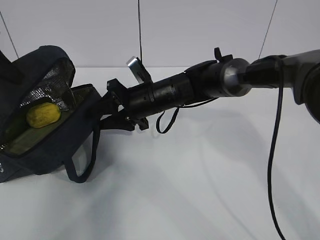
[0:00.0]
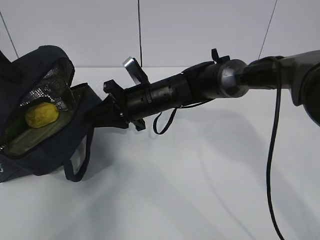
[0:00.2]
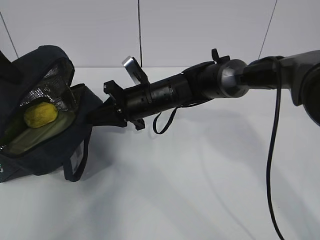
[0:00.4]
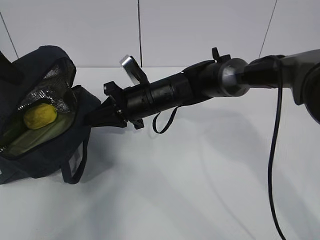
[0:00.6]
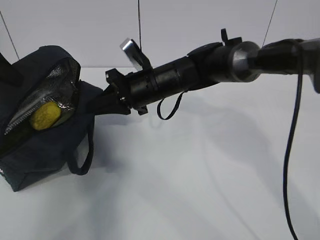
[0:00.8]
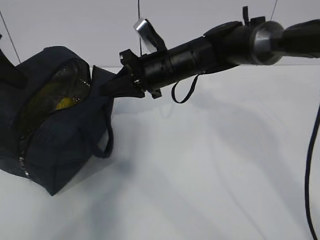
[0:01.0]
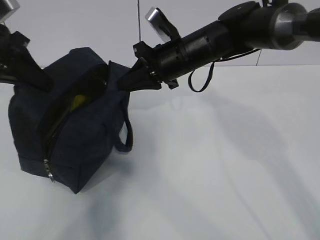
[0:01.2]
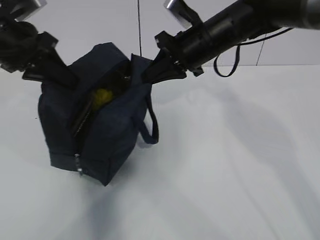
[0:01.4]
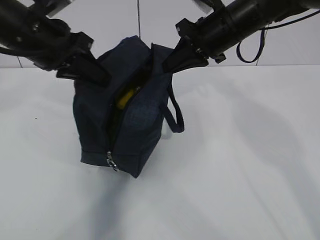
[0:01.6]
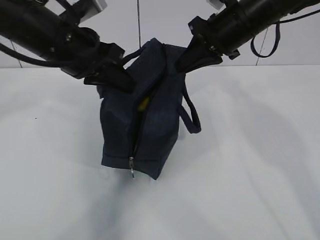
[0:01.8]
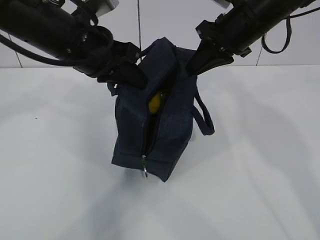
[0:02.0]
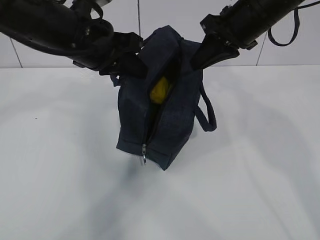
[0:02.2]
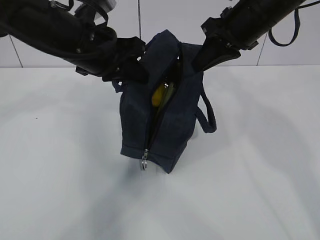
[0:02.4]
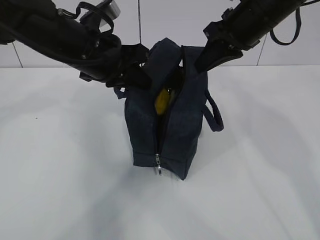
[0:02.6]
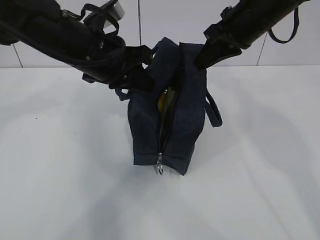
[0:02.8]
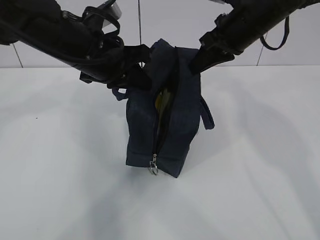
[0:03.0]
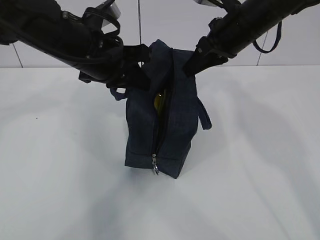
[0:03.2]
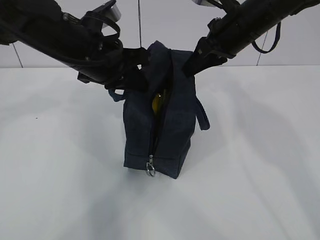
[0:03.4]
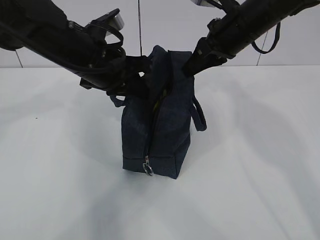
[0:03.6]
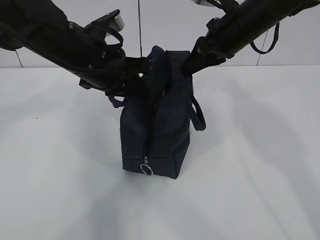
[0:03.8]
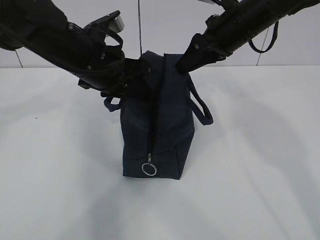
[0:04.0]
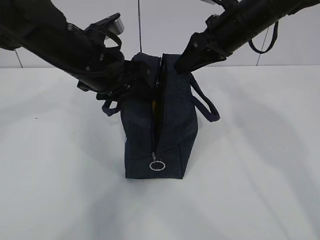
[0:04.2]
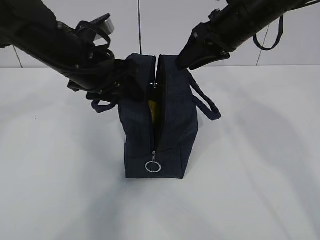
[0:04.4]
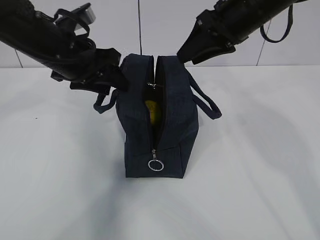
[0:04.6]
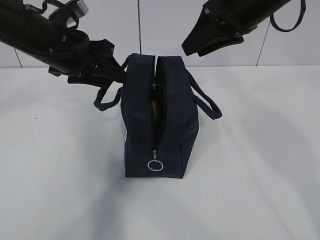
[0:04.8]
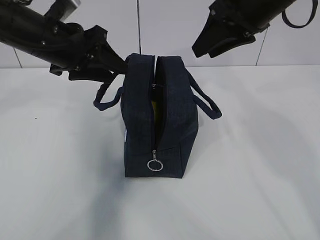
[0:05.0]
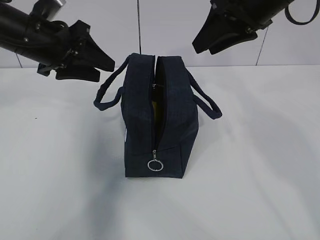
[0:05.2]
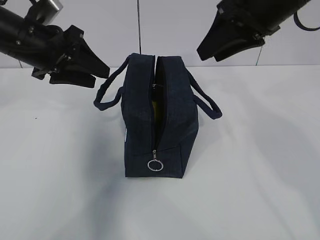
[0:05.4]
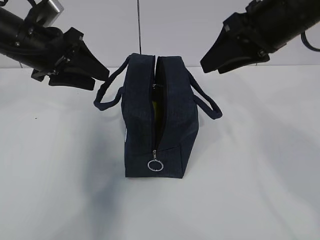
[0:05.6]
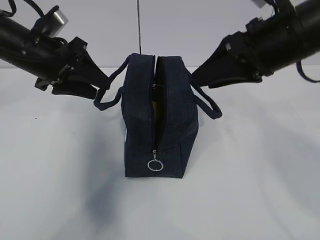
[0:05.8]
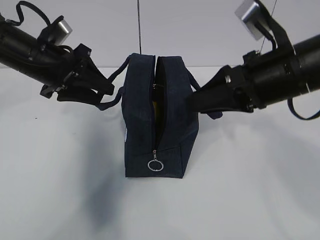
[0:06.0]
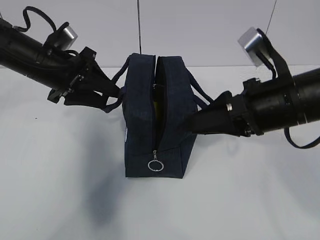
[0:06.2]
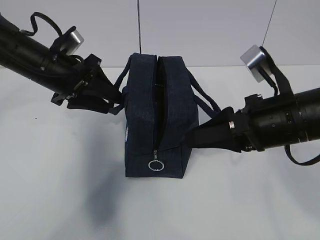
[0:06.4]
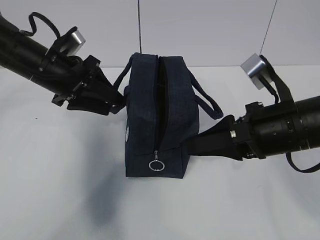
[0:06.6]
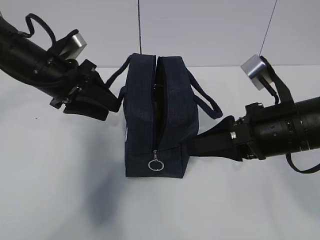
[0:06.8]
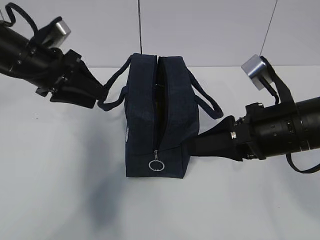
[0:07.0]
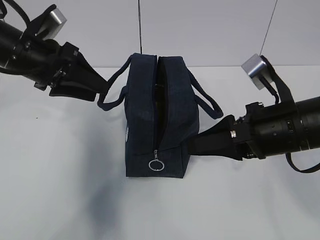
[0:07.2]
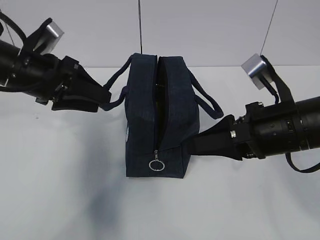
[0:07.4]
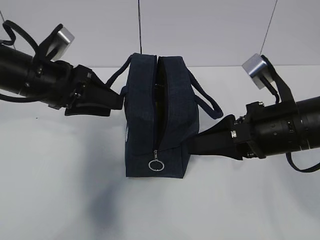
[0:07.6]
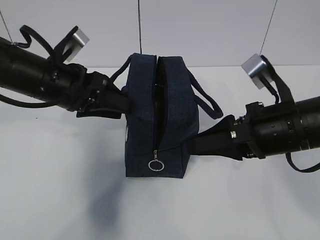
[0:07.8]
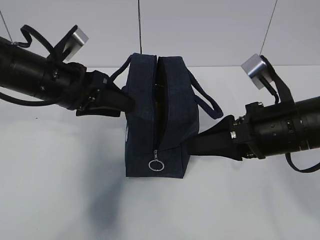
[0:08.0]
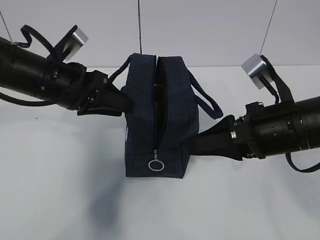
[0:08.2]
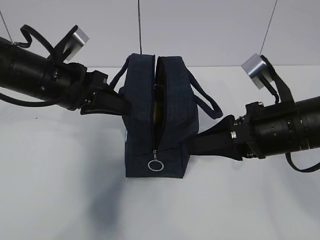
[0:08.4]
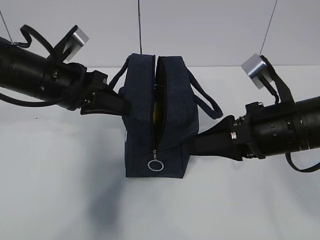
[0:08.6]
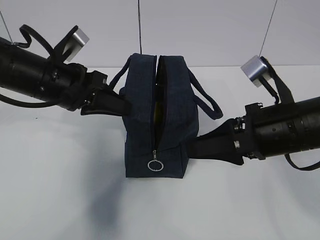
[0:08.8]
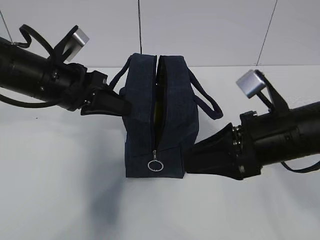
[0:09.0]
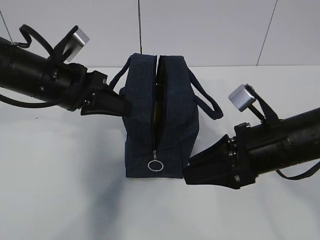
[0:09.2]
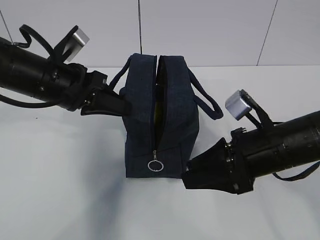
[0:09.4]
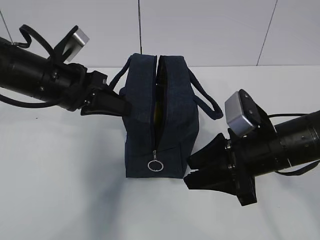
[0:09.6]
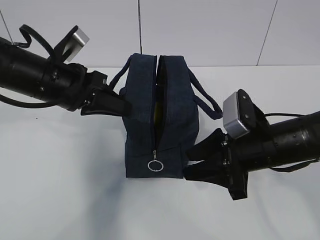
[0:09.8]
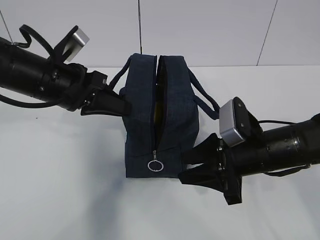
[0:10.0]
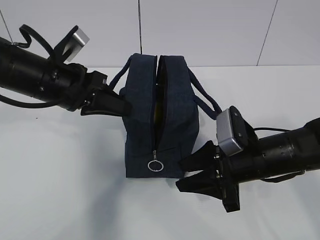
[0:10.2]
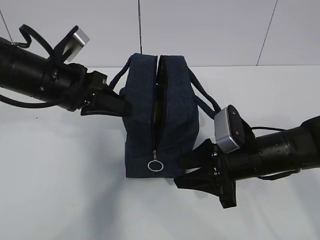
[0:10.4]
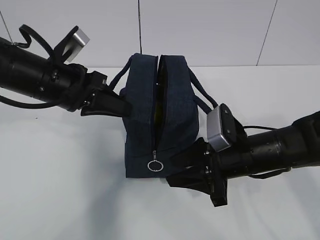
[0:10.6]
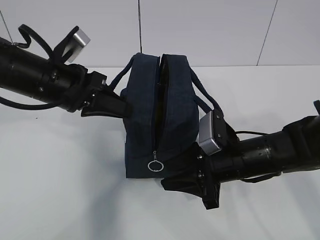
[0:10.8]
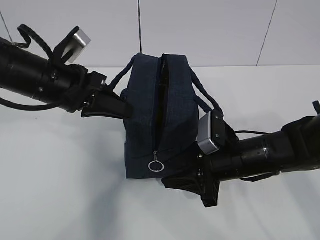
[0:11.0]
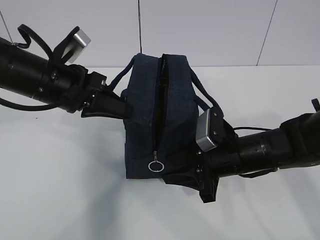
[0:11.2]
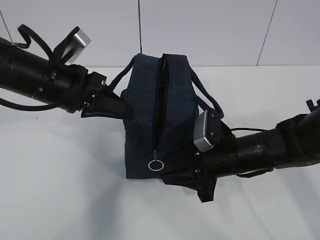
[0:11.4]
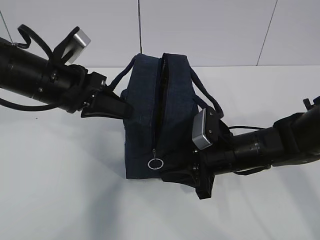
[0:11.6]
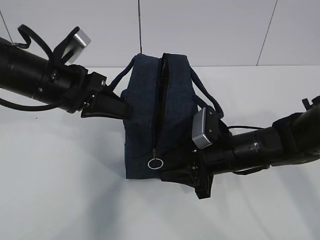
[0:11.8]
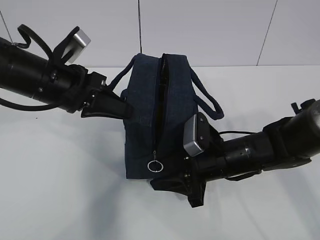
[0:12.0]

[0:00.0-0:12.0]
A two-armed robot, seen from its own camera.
0:00.0 to 0:01.6: The left gripper moves to the right, about 15 cm, while the right gripper travels upward and to the right by about 20 cm, and closes.
0:01.6 to 0:03.0: The left gripper moves to the right, some 5 cm.
0:03.0 to 0:04.4: The right gripper opens; the left gripper opens its fingers.
0:04.4 to 0:06.0: The left gripper shifts about 10 cm to the left. Meanwhile the right gripper goes approximately 10 cm backward.
0:06.0 to 0:07.6: The right gripper is displaced downward by roughly 5 cm.
0:07.6 to 0:09.0: The left gripper closes its fingers.
0:09.0 to 0:10.4: The right gripper goes roughly 10 cm downward.
0:10.4 to 0:12.0: The right gripper moves roughly 5 cm.

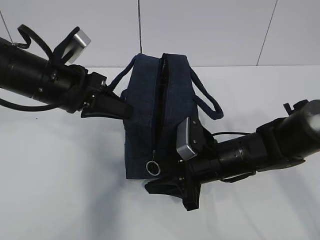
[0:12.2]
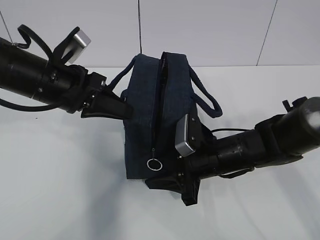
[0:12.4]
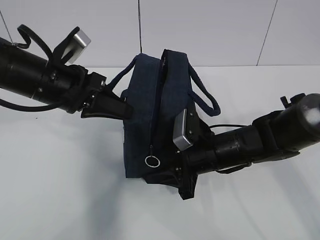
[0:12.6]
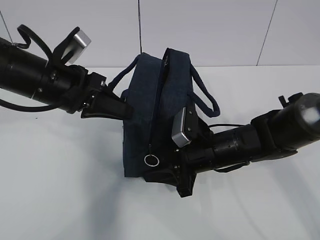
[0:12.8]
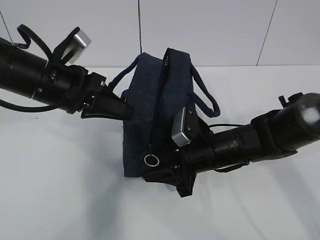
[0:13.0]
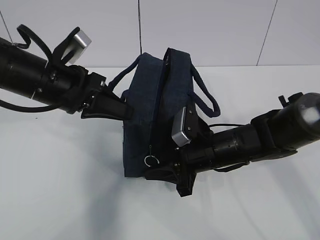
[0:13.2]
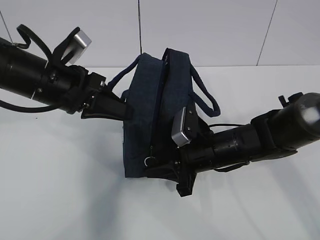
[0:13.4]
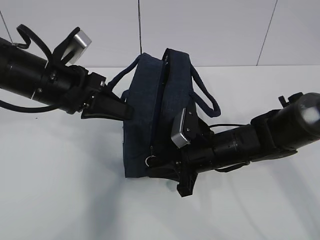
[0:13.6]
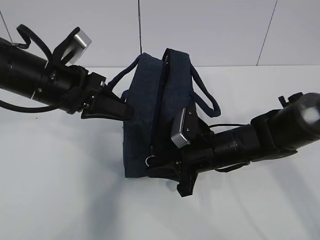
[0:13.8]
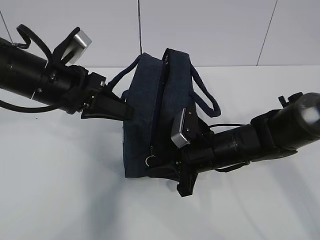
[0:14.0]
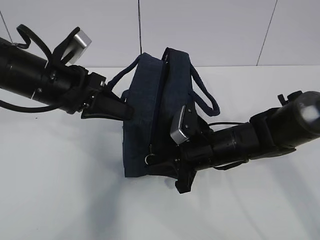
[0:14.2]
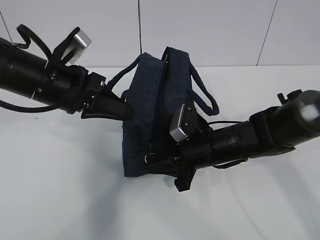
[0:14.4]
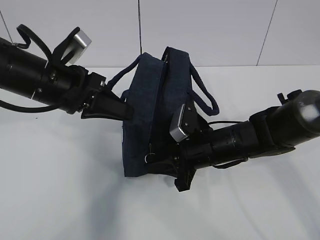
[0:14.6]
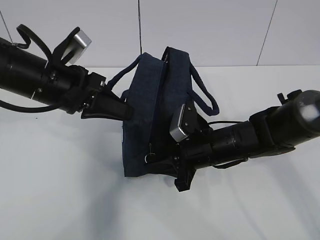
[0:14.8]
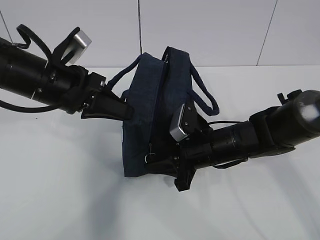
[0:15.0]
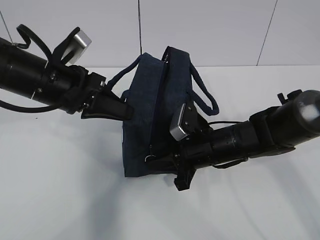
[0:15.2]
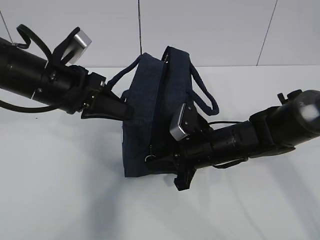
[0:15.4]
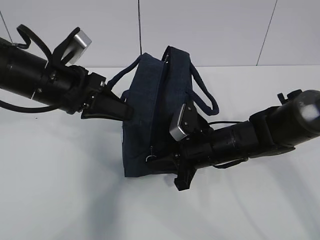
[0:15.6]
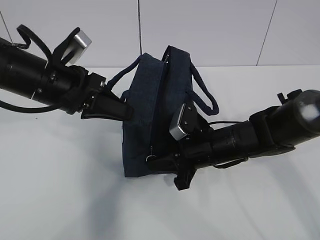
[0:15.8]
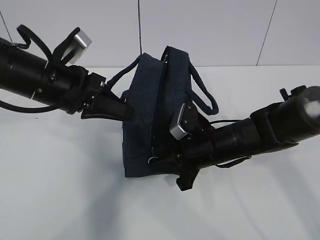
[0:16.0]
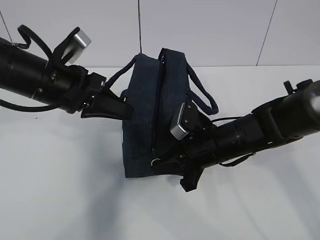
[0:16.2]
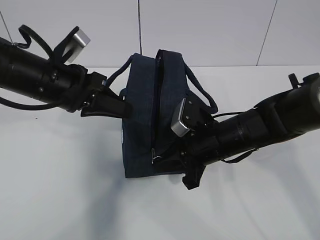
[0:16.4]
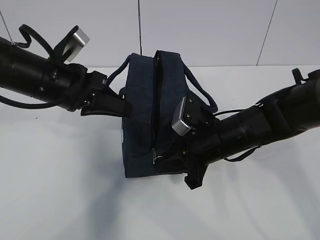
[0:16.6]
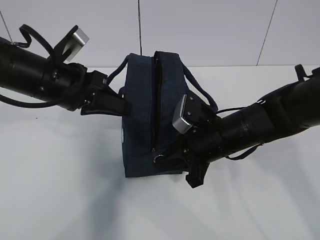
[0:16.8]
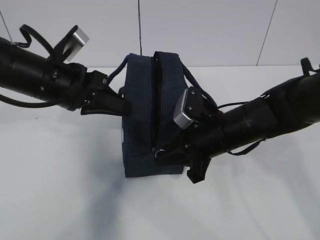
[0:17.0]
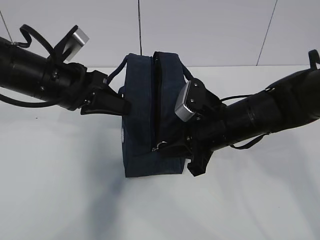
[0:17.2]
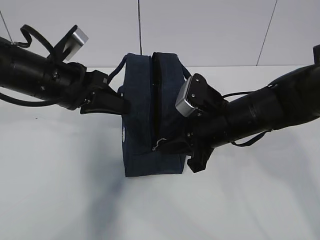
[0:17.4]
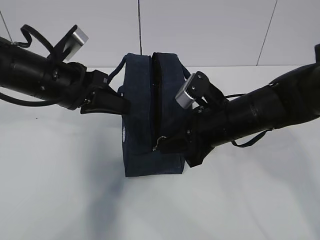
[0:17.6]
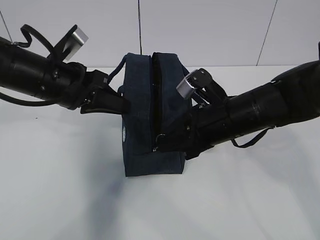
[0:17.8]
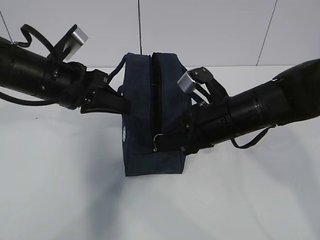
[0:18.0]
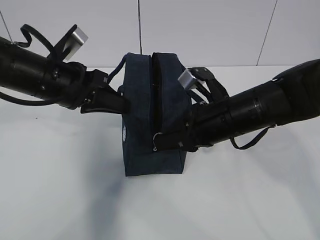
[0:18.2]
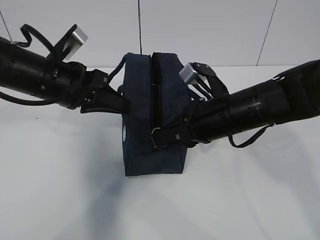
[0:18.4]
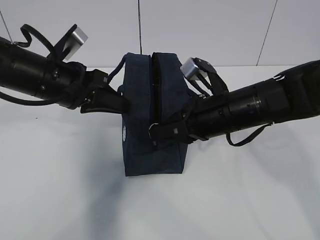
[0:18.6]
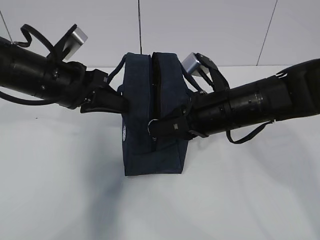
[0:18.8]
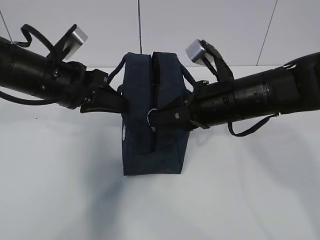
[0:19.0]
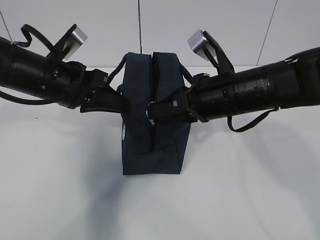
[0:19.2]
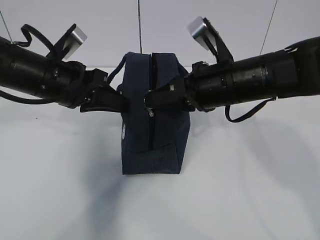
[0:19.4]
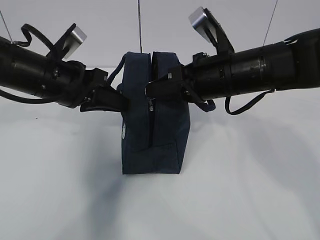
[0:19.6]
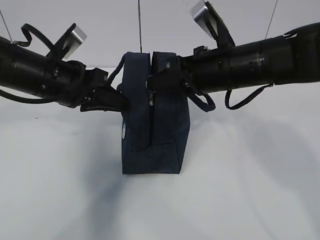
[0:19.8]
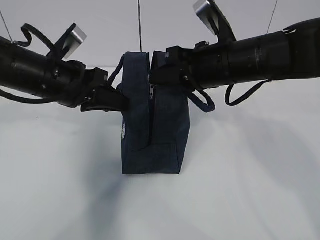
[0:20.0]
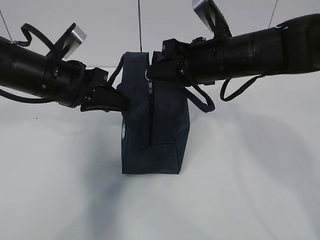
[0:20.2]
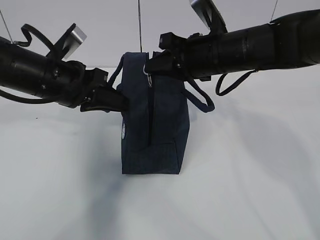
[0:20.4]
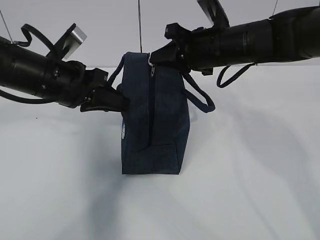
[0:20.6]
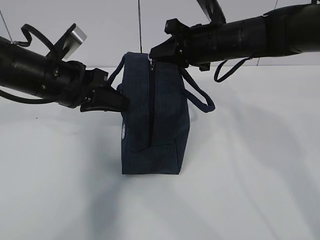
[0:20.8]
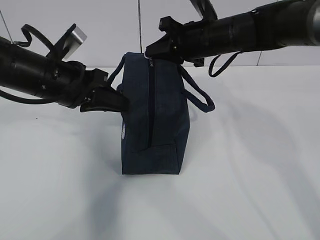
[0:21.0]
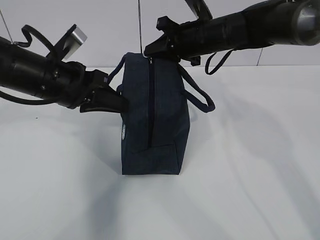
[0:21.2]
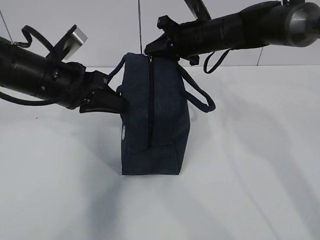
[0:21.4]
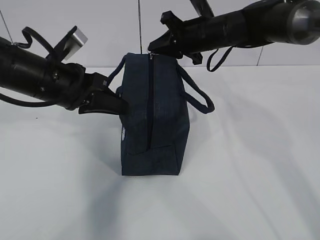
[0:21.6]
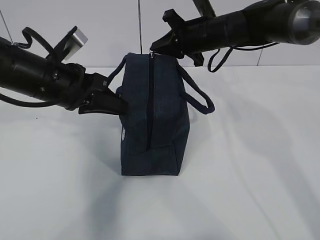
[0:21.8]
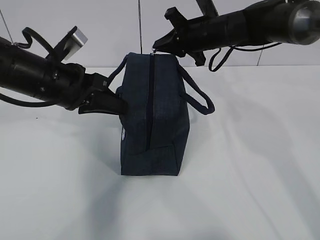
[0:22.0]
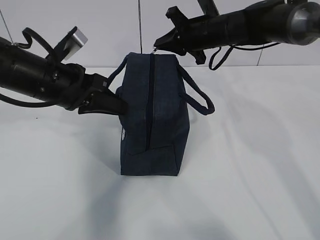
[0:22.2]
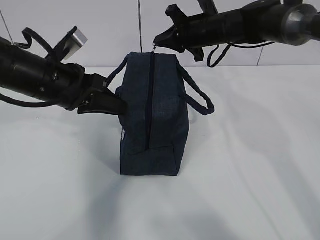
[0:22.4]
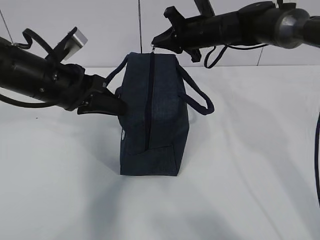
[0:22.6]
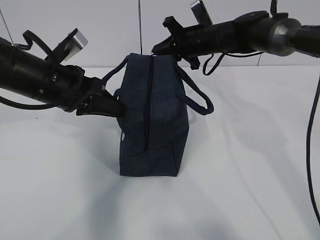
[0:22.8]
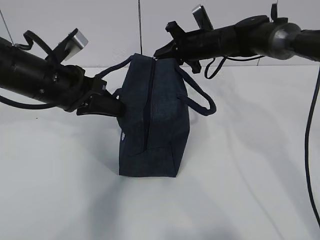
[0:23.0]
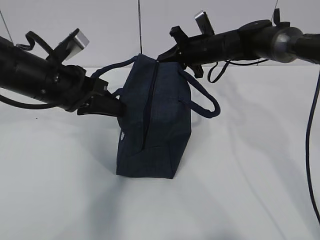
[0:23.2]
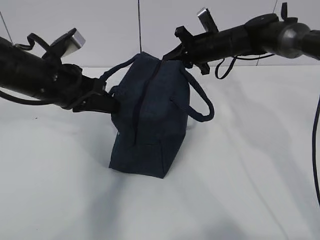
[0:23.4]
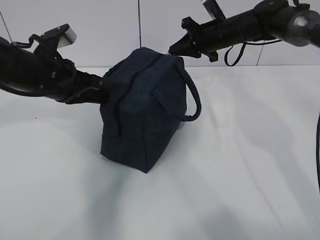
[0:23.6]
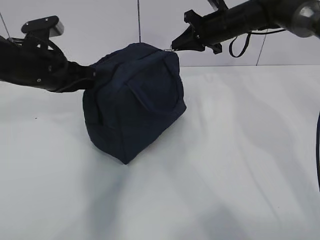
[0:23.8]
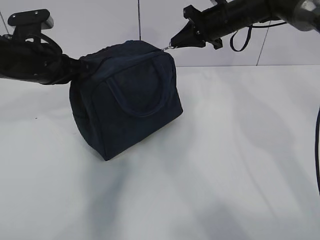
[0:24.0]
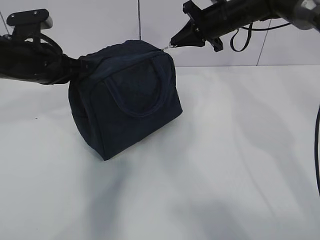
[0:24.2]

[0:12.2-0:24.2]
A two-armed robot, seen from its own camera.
Step, 0:15.8 to 0:16.2: Pull the zipper with your right hand.
0:12.2 to 0:13.8: The grippers stay close to where they were, moving slightly.
0:13.8 to 0:15.2: The two grippers keep their place.
0:15.2 to 0:16.6: The grippers move only a little.
0:16.6 to 0:18.2: The right gripper heads upward, covering some 5 cm.
0:18.2 to 0:19.8: The right gripper shifts about 5 cm upward.
0:19.8 to 0:21.2: The right gripper travels forward by approximately 15 cm.
0:21.2 to 0:22.6: The right gripper goes some 5 cm forward.
0:22.6 to 0:24.2: The right gripper changes place by approximately 5 cm, while the left gripper changes place by roughly 5 cm.
